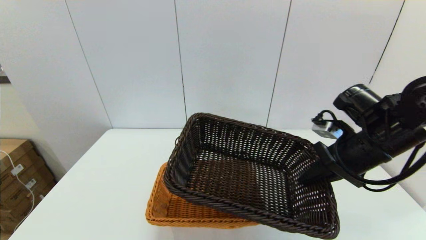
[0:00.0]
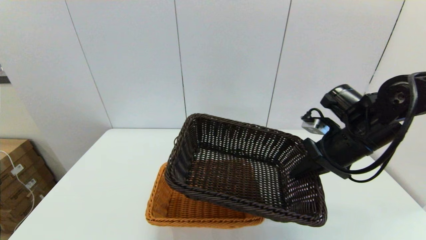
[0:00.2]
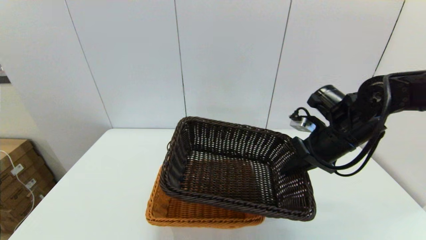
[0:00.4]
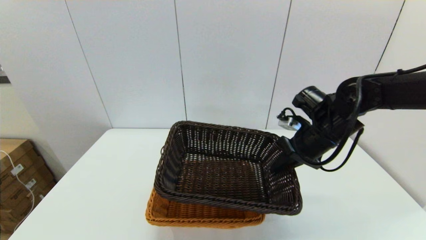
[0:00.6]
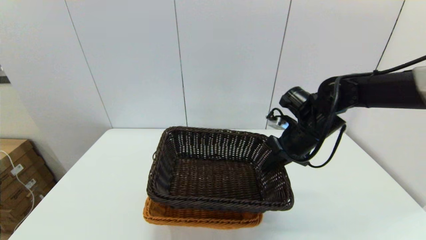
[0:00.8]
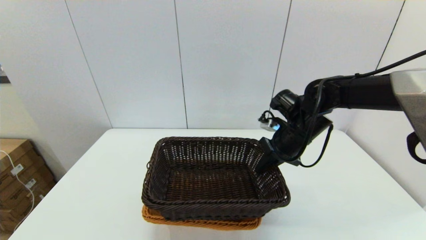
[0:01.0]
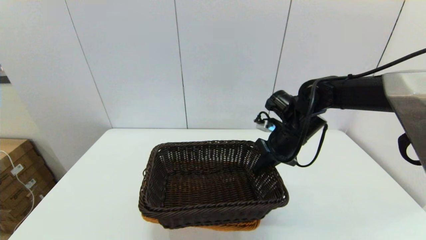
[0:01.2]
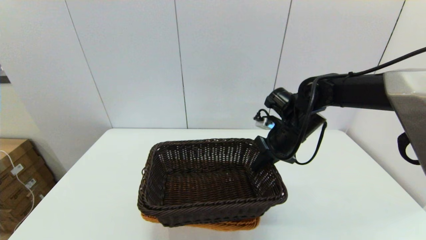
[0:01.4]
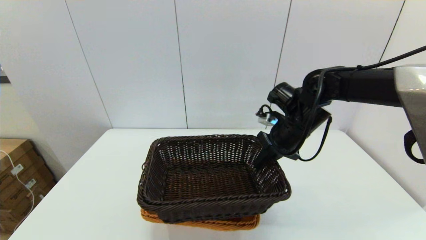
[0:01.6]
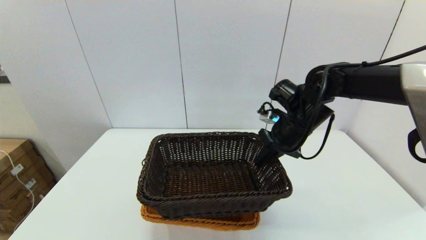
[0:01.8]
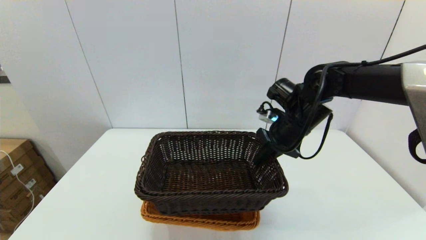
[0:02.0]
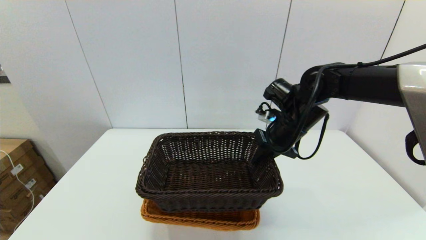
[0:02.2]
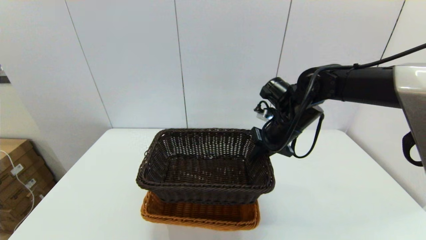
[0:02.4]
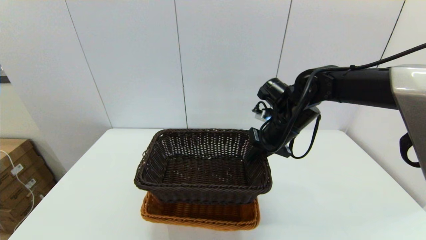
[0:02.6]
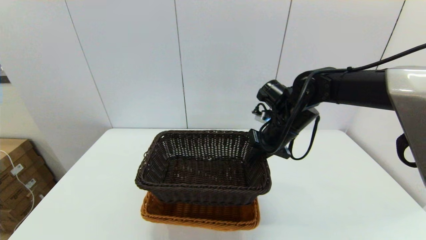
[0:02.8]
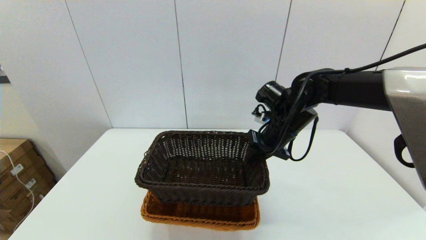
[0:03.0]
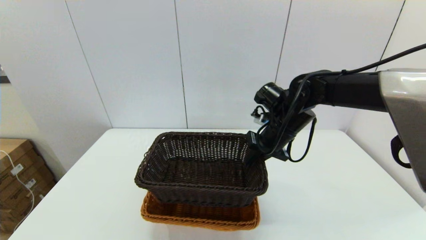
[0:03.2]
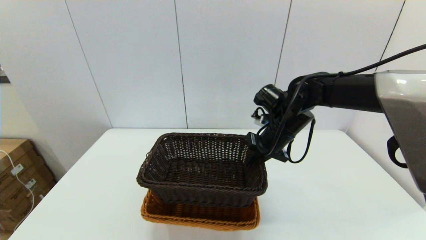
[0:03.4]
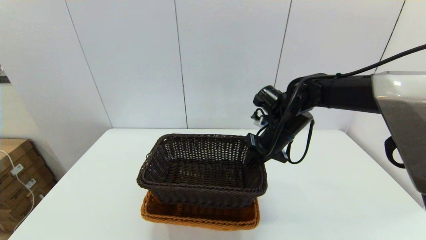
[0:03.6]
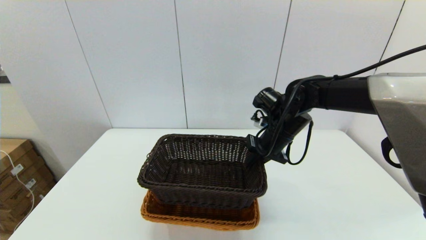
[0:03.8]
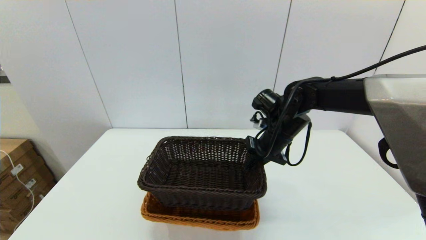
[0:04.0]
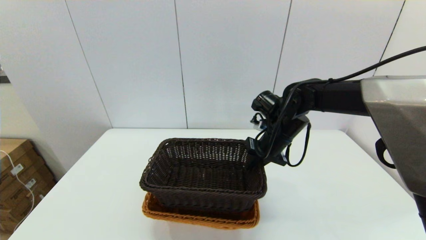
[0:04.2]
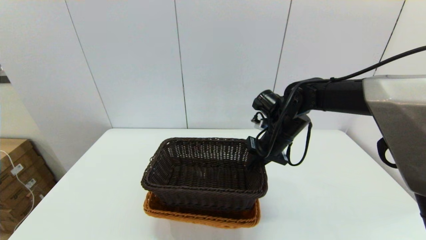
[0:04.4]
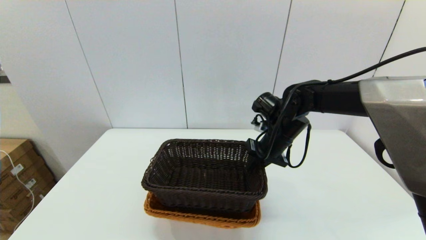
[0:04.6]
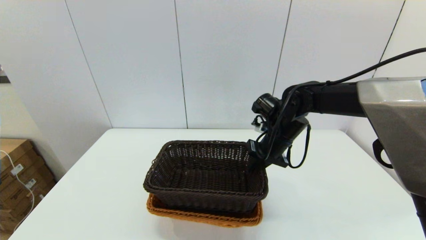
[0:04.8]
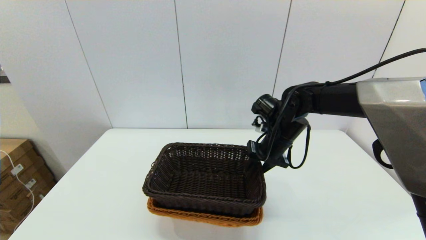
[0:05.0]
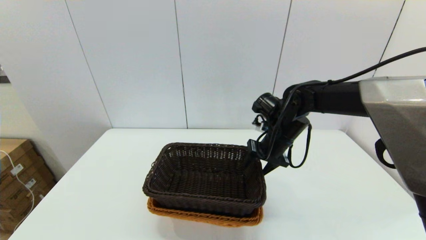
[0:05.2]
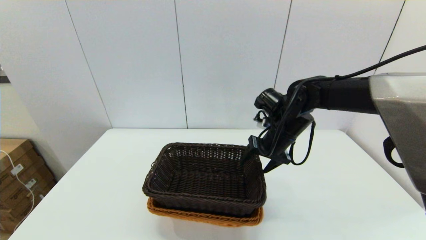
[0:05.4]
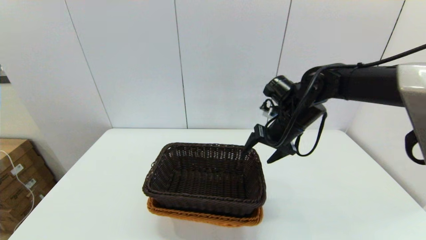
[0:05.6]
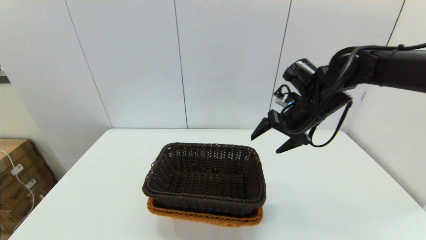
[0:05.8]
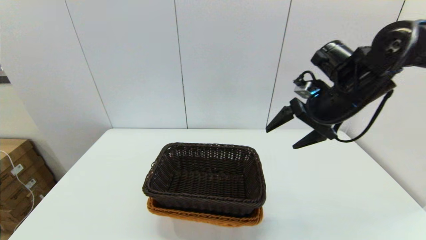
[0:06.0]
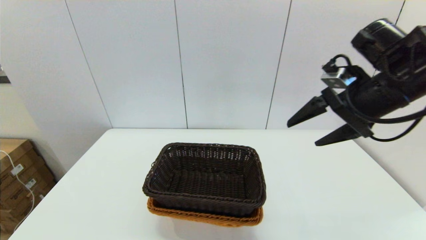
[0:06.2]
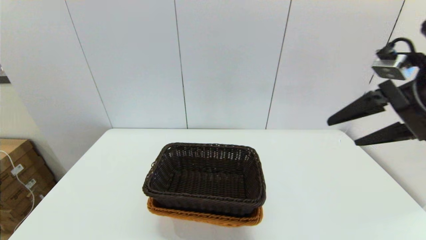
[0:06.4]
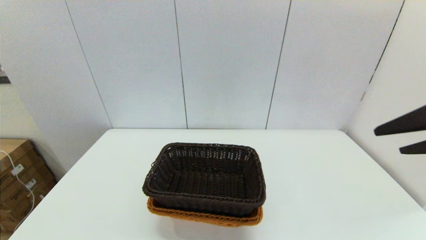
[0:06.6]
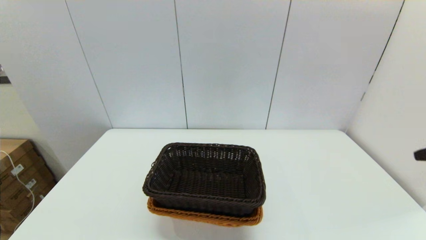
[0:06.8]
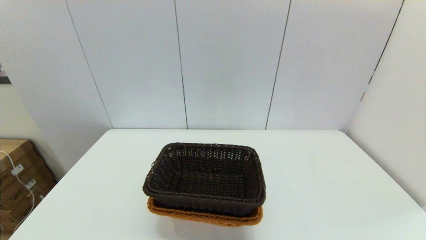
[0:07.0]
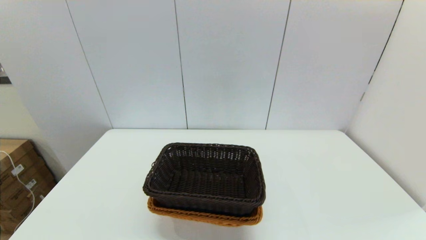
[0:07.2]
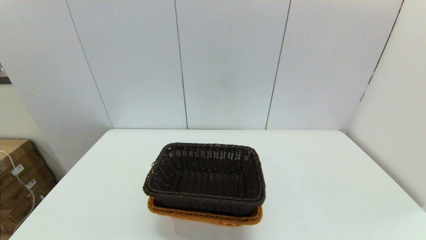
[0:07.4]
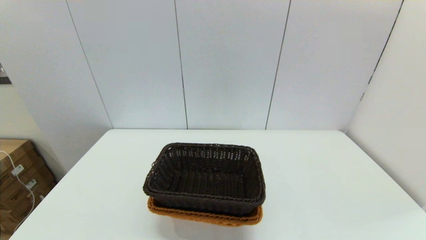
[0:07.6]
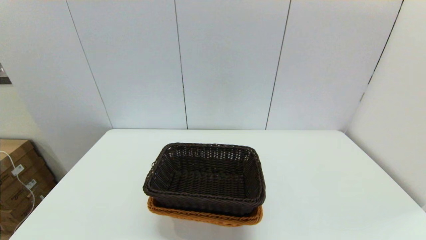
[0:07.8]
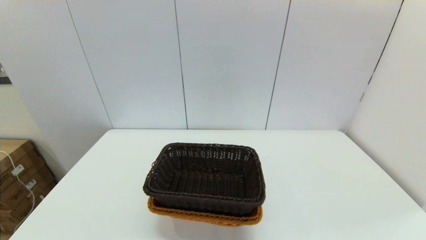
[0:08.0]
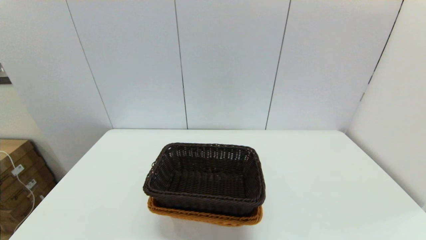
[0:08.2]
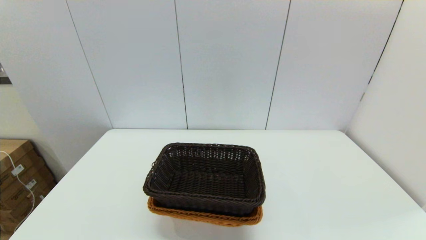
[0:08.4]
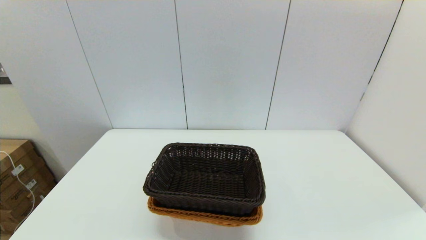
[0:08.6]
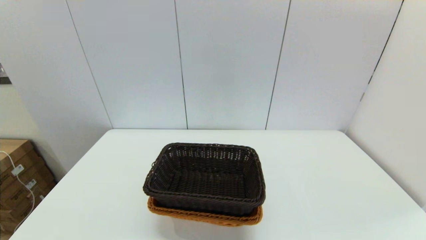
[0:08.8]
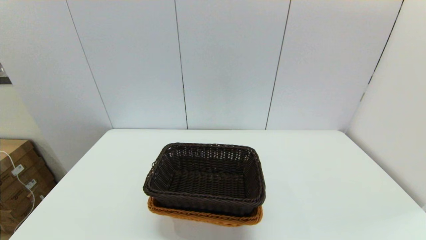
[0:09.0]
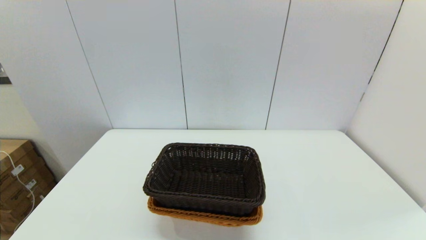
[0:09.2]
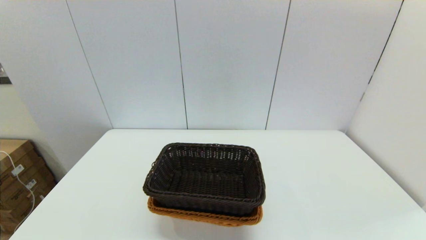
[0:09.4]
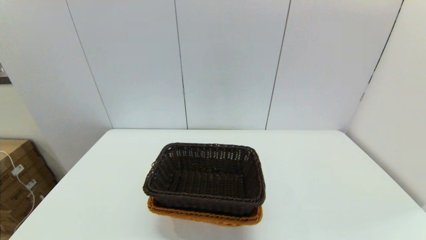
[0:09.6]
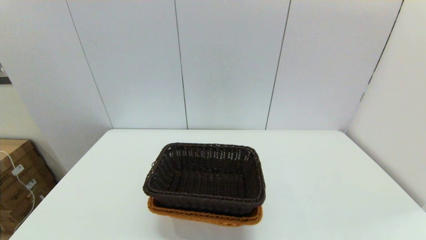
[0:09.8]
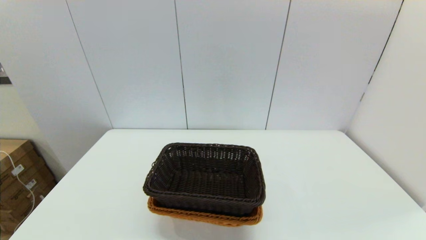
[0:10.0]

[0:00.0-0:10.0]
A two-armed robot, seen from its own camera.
Task of the whole recording: stack a basket on top of another basket.
Step, 0:00.0 to 0:05.6: Place the dark basket into the light color basket with the right gripper.
0:00.0 to 0:01.4: The right gripper shifts about 15 cm forward and to the left.
0:01.4 to 0:04.2: The grippers make only small movements.
0:04.2 to 0:05.8: The right gripper travels upward and to the right by about 10 cm, and opens up.
0:05.8 to 0:07.2: The right gripper moves backward, approximately 35 cm.

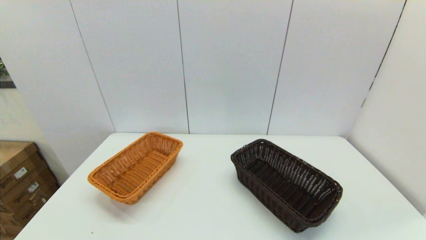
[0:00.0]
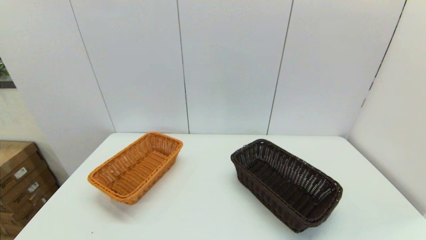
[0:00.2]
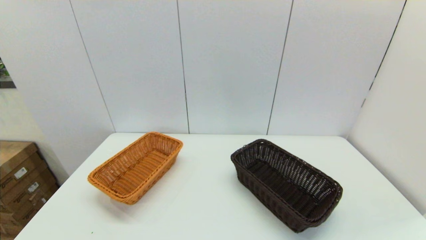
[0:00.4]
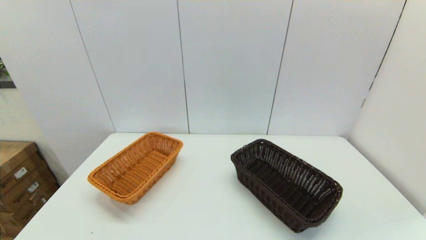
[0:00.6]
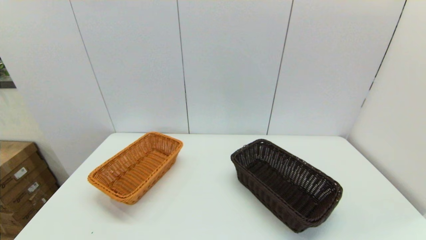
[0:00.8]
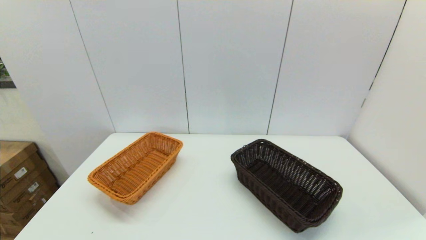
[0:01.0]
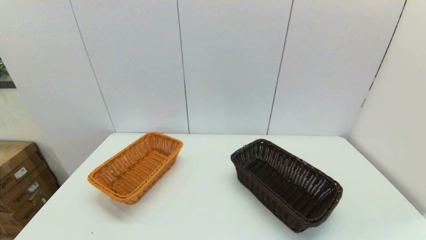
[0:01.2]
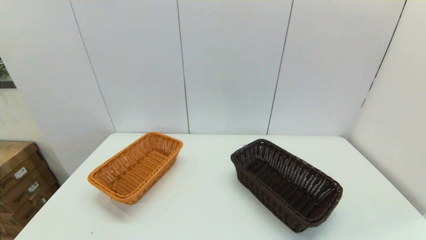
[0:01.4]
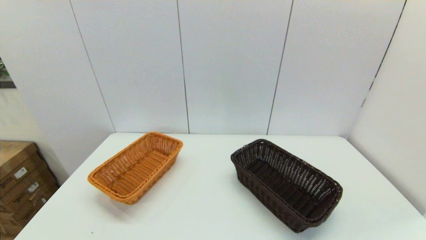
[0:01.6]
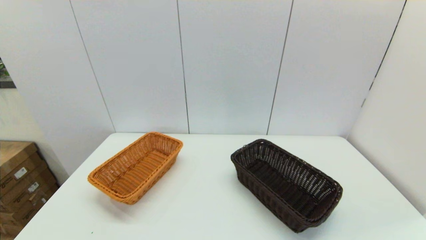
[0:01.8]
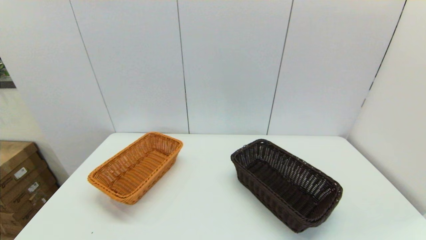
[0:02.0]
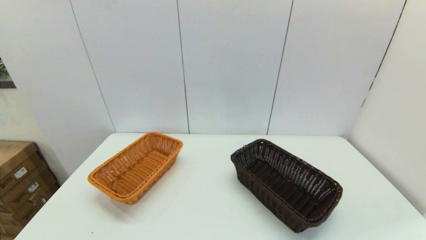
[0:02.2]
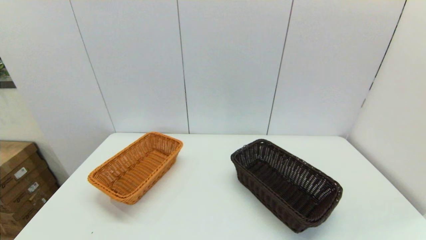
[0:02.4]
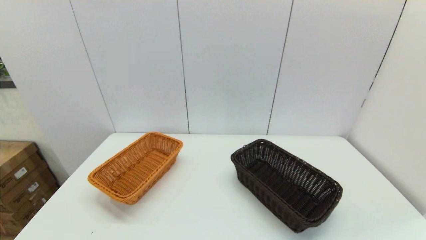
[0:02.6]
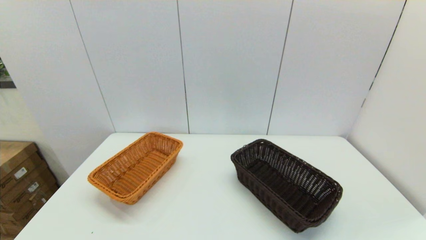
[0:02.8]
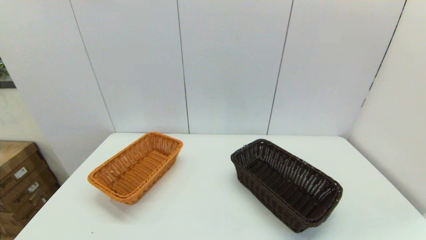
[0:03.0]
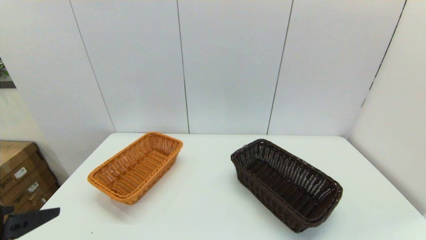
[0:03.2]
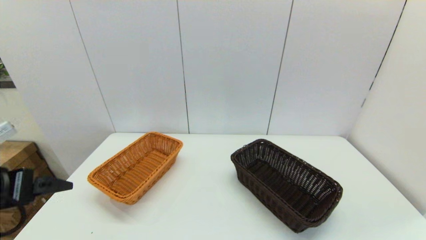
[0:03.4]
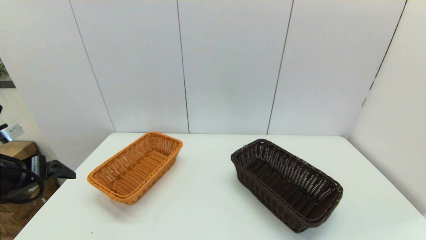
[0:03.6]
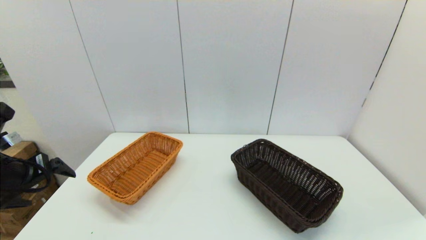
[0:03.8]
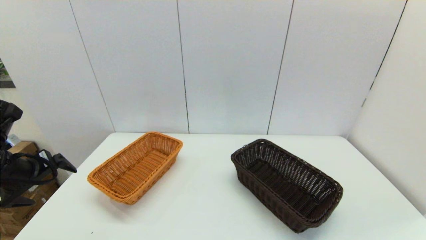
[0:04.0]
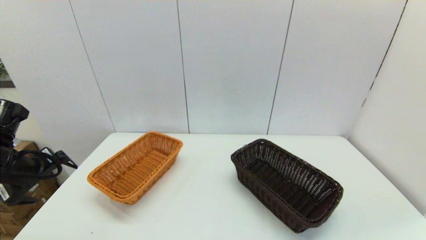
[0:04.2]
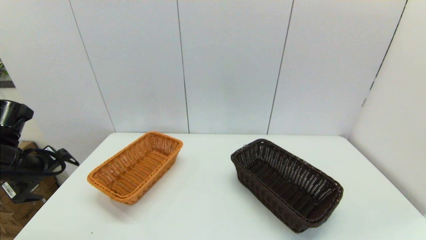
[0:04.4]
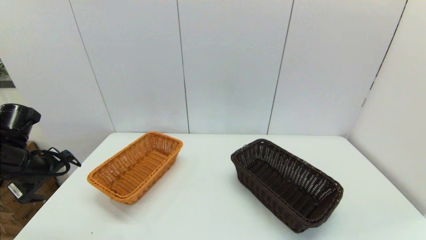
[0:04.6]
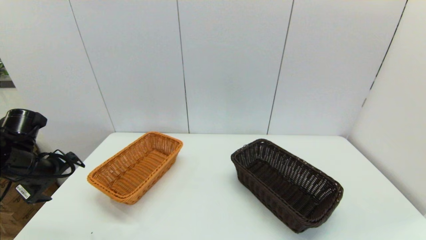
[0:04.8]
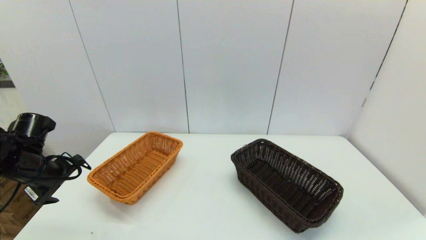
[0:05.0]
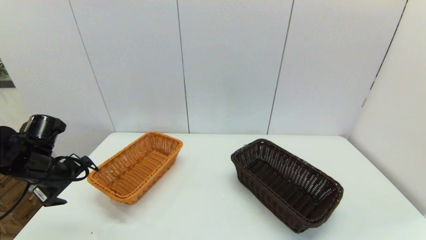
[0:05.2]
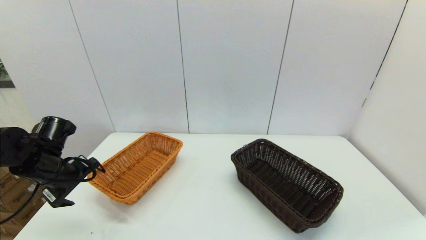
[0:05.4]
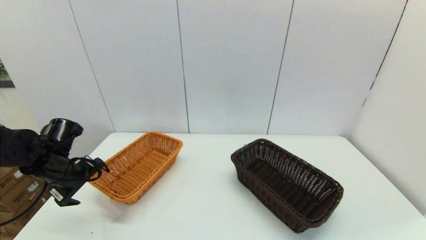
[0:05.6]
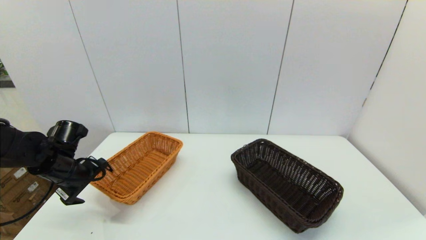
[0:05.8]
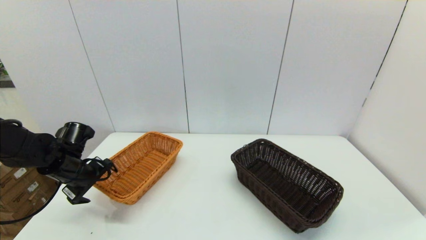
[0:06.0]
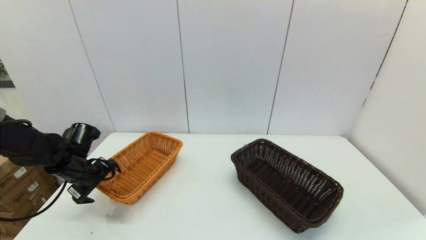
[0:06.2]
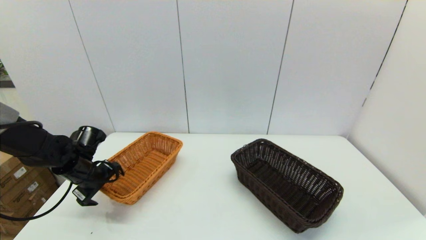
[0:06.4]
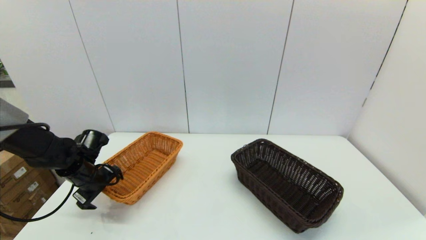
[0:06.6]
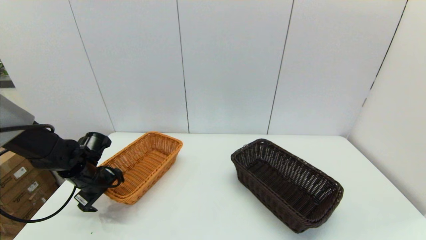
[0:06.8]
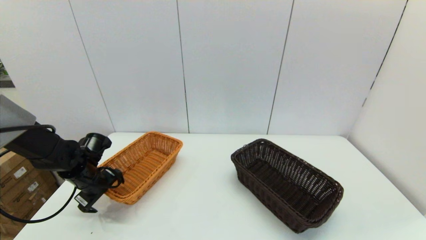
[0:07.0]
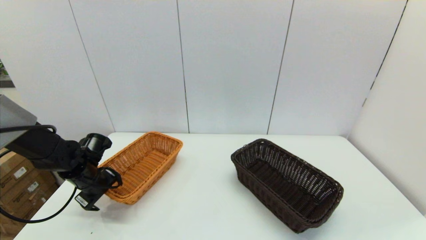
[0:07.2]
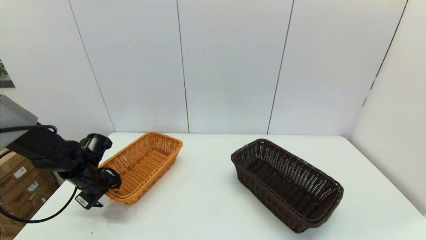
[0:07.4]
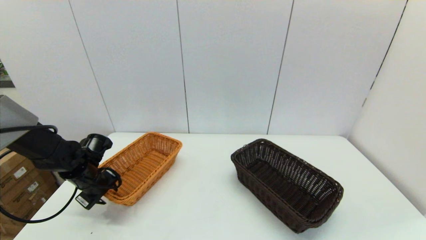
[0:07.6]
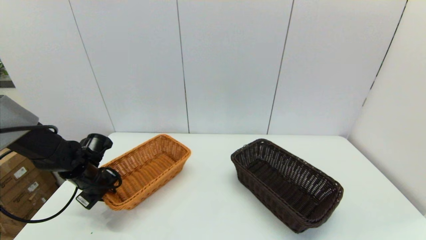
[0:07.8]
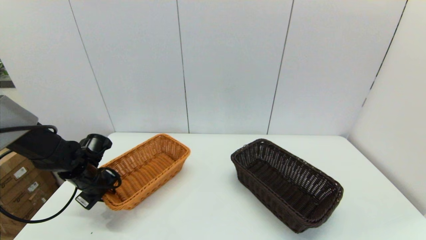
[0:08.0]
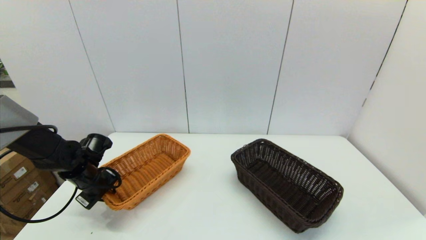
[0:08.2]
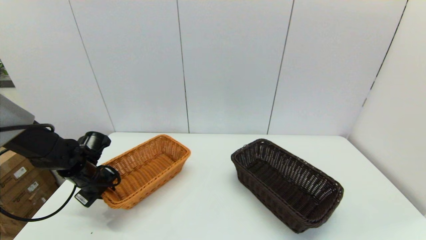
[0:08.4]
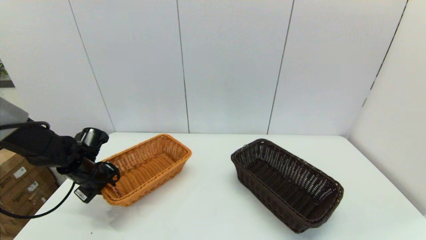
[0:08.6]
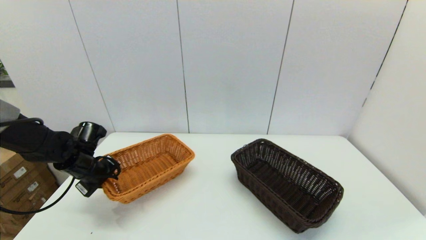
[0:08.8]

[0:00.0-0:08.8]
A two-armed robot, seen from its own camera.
Task of the whole recording: stack a basket on top of another basket.
Step, 0:02.8 to 0:07.8: Grasp the light basket with the left gripper.
0:00.0 to 0:01.4: Both grippers stay about where they are.
0:03.0 to 0:04.4: The left gripper goes approximately 20 cm forward.
0:04.4 to 0:05.8: The left gripper heads downward and forward, covering about 10 cm.
0:05.8 to 0:07.4: The left gripper is displaced downward by some 5 cm, and closes up.
0:07.4 to 0:08.8: The left gripper closes up.
